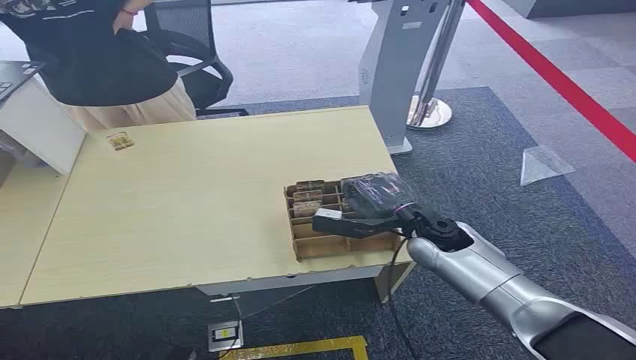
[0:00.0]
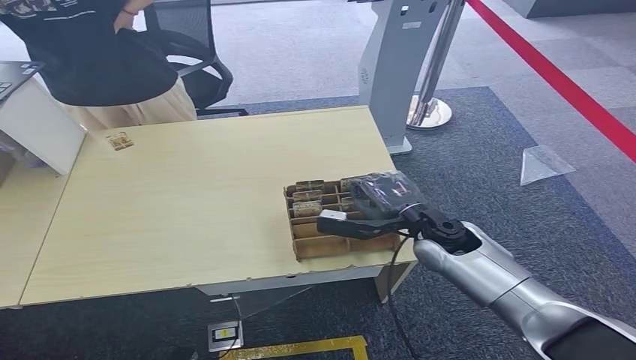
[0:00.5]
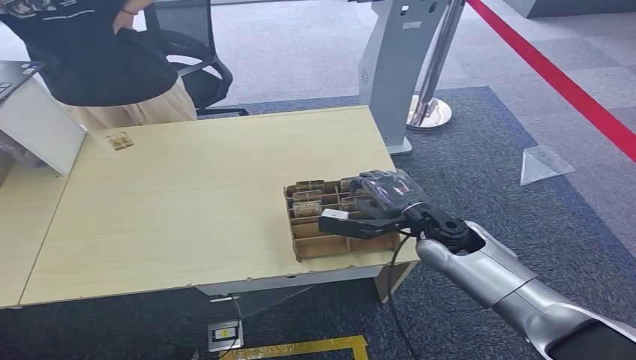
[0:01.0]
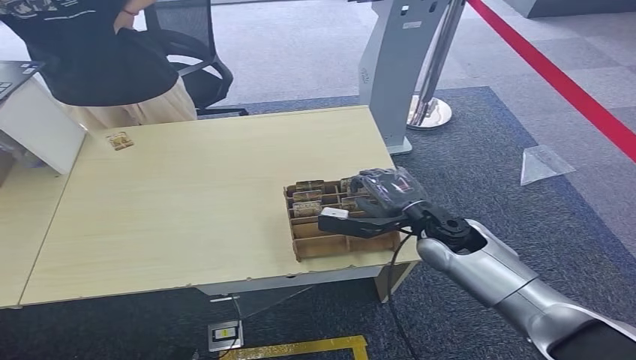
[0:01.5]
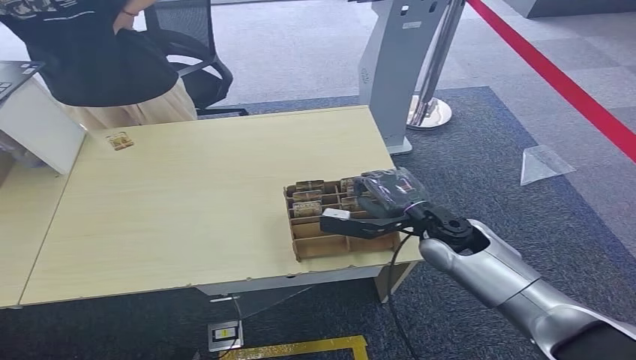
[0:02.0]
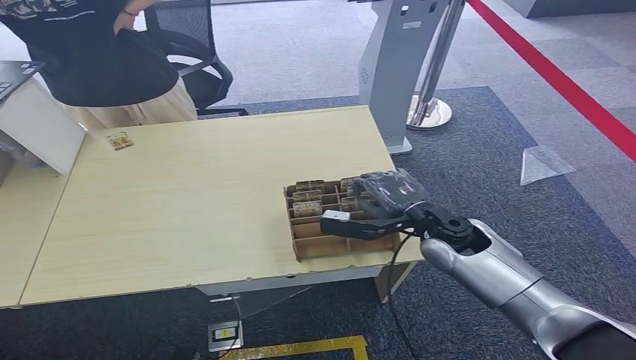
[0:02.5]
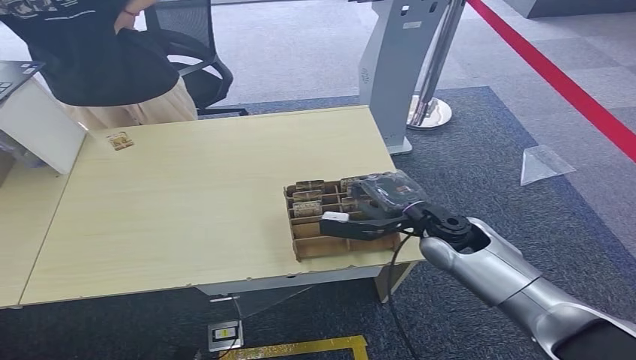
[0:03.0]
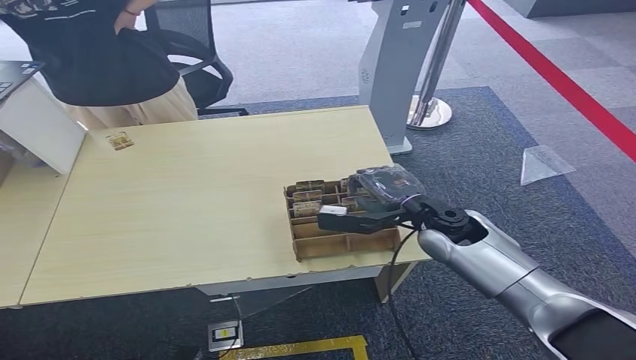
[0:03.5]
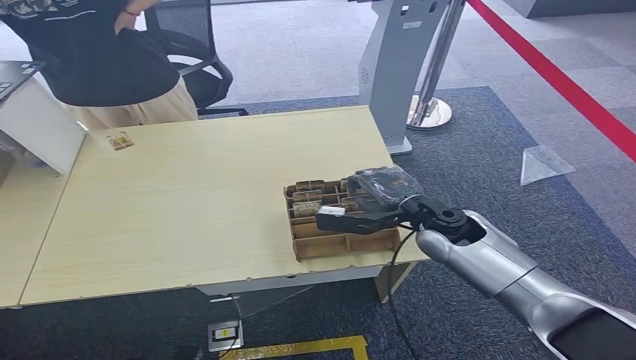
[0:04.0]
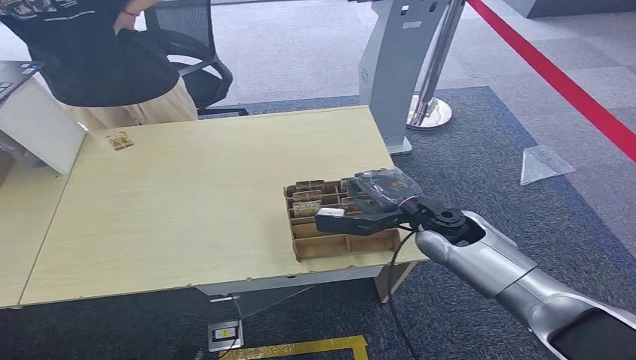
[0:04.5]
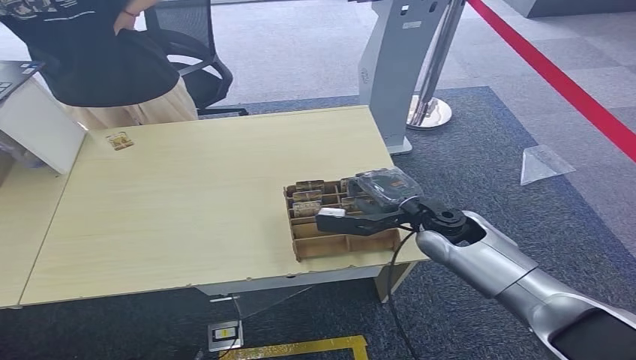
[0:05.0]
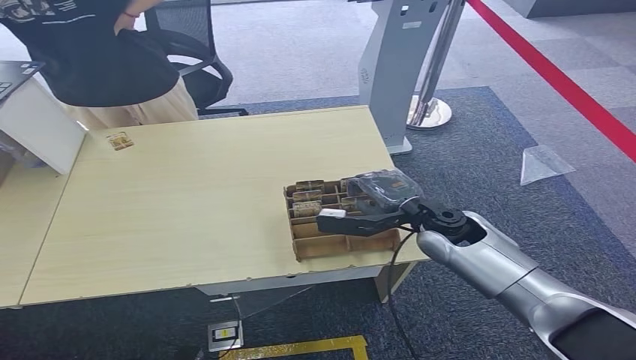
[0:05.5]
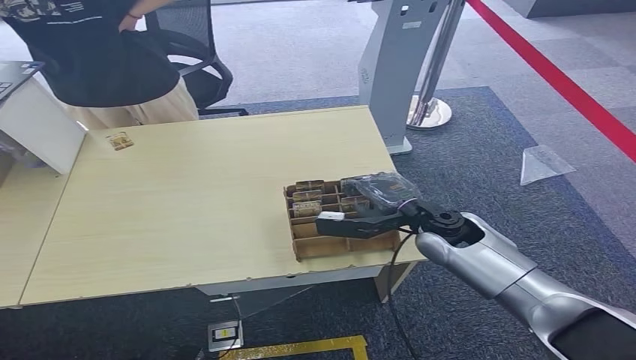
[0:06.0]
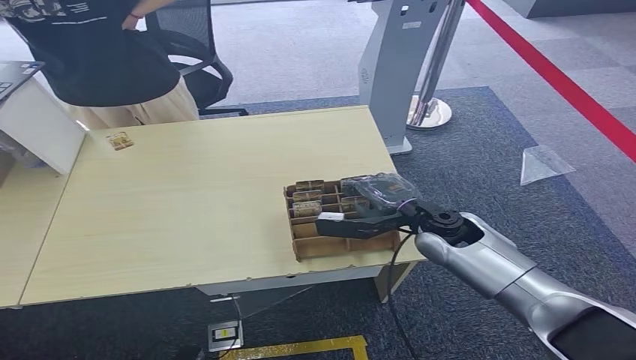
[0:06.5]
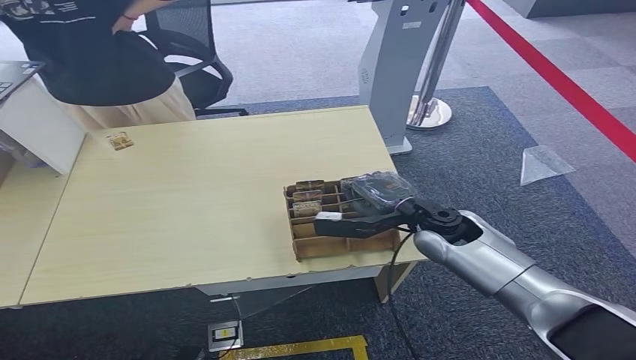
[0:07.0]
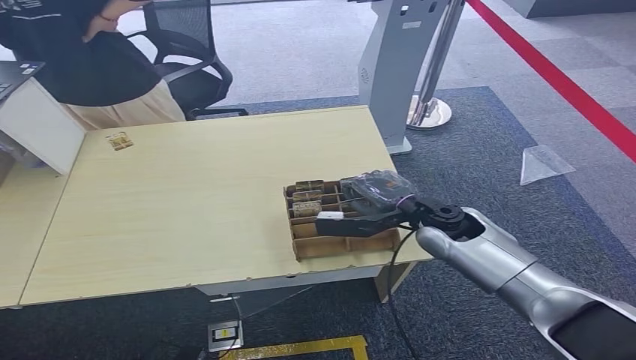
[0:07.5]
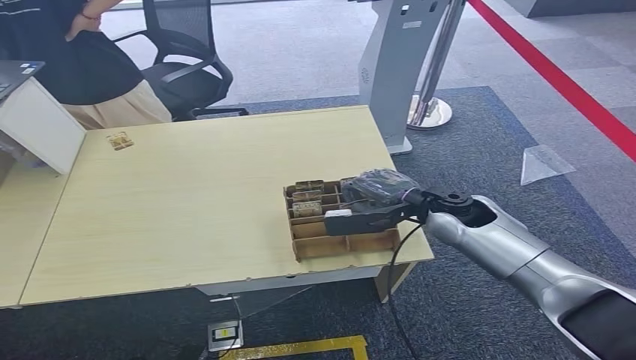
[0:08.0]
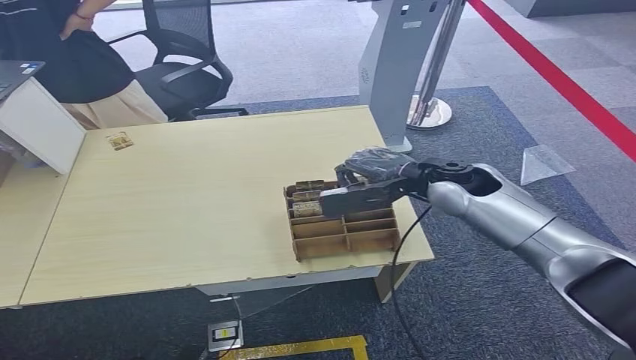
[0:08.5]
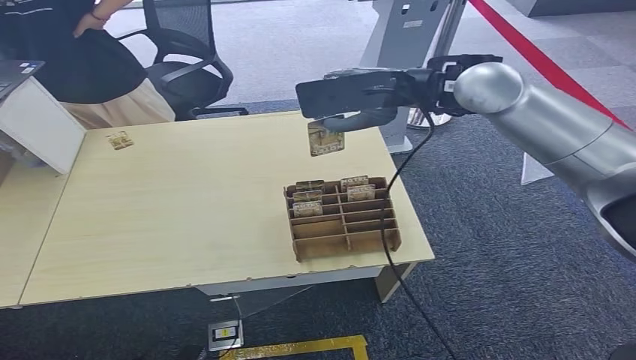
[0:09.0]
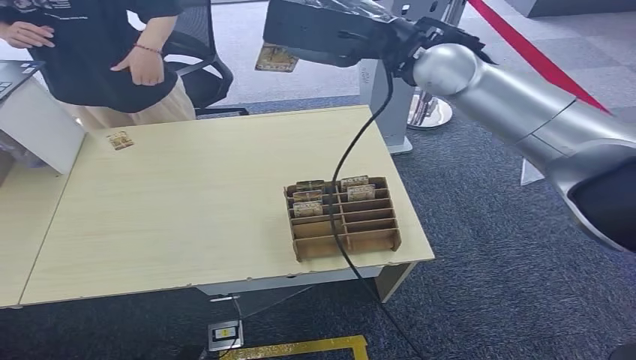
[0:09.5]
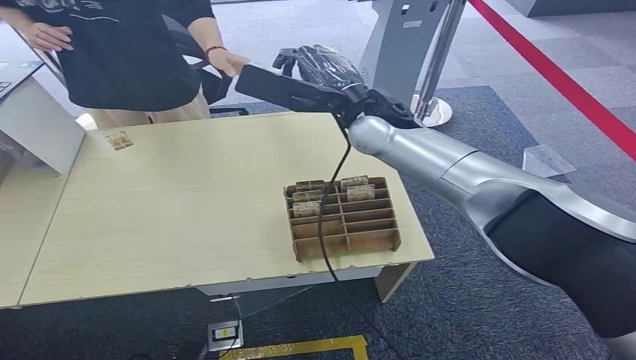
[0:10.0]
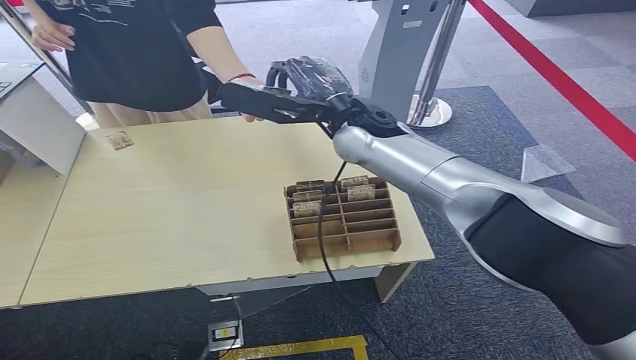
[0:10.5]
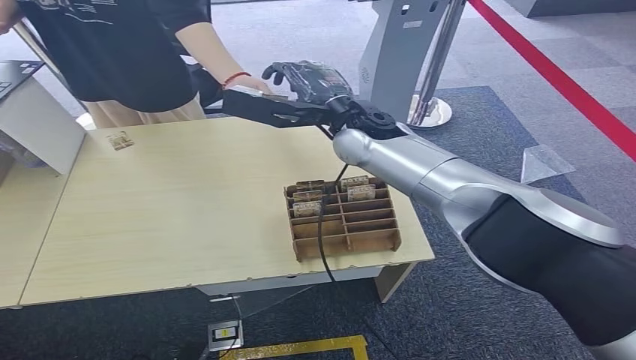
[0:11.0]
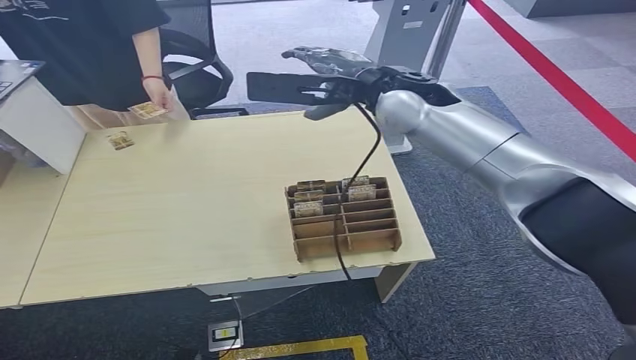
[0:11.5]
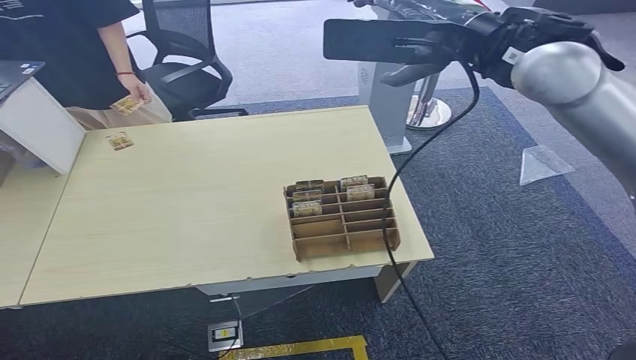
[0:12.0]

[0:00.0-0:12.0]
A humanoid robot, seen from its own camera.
Task of the whole recording: Pick up the card and hand it to the target person.
Step, 0:00.0 to 0:08.5: Pick up the key card from the card box.
Step, 0:09.0 to 0:12.0: Hand the key card to the target.
0:02.0 to 0:04.0: The hands move only a little.
0:04.0 to 0:06.0: Both hands stay about where they are.
0:06.0 to 0:08.0: The hands move only a little.
